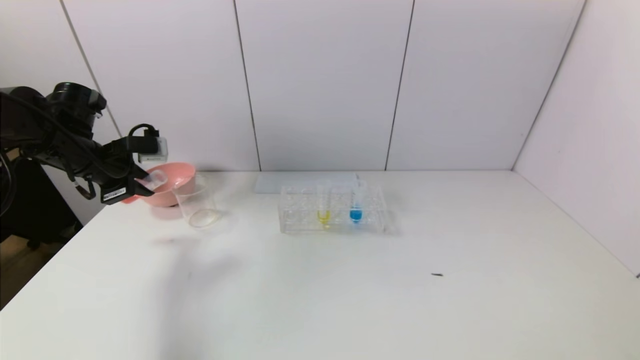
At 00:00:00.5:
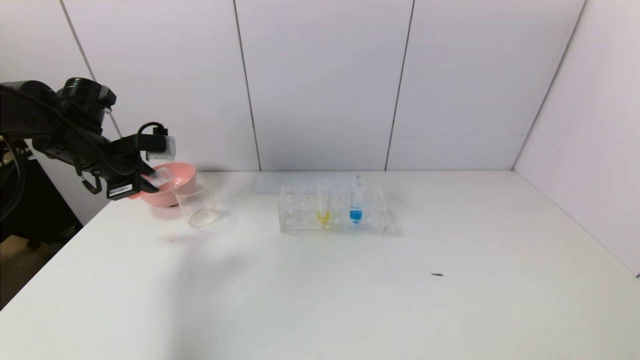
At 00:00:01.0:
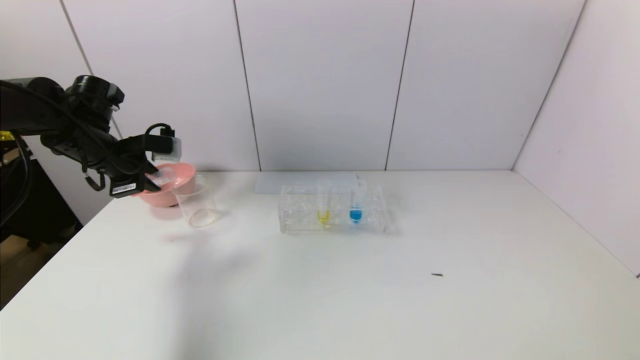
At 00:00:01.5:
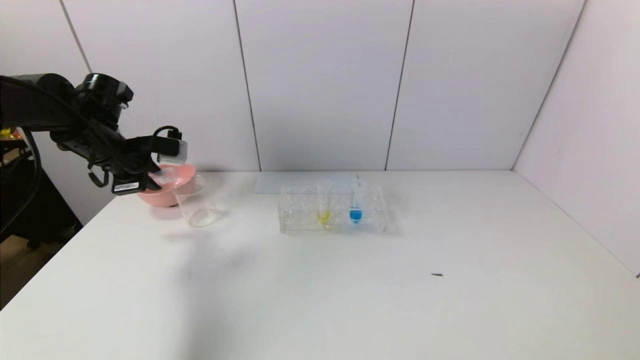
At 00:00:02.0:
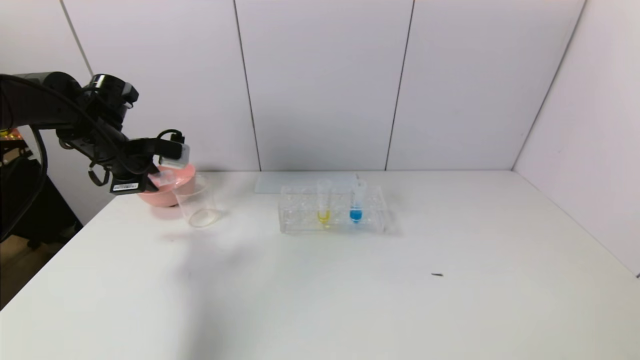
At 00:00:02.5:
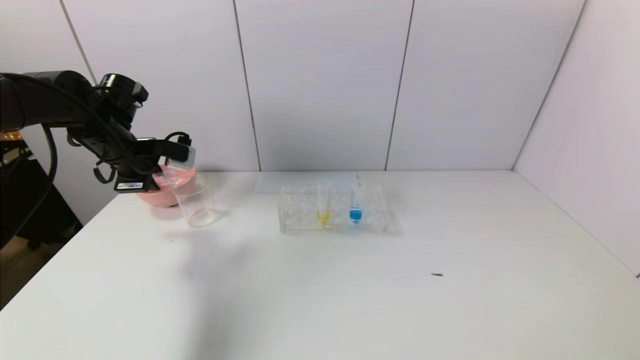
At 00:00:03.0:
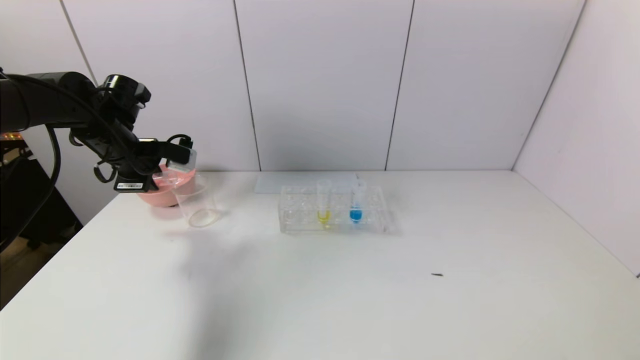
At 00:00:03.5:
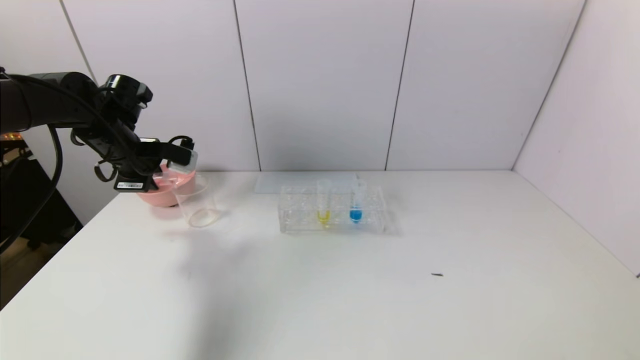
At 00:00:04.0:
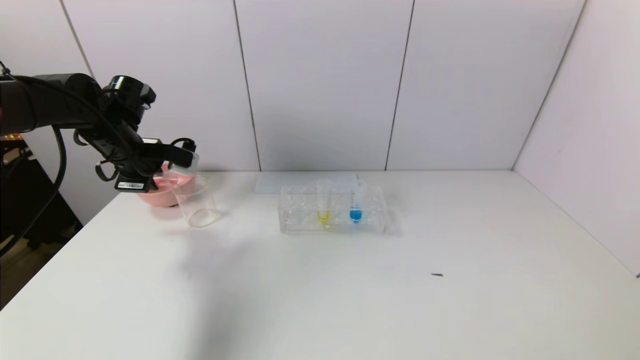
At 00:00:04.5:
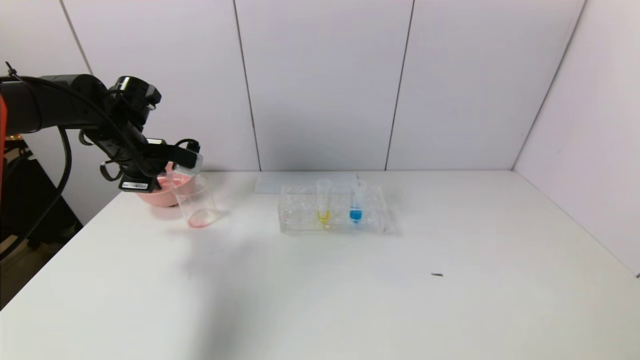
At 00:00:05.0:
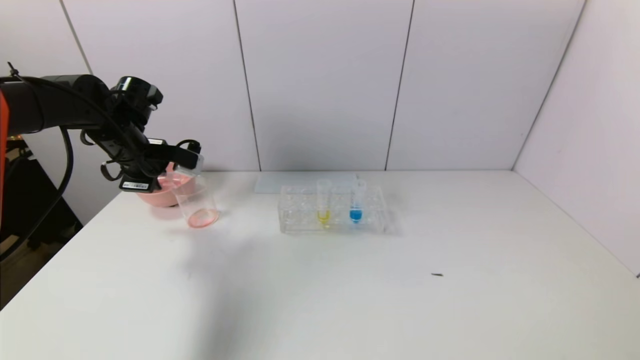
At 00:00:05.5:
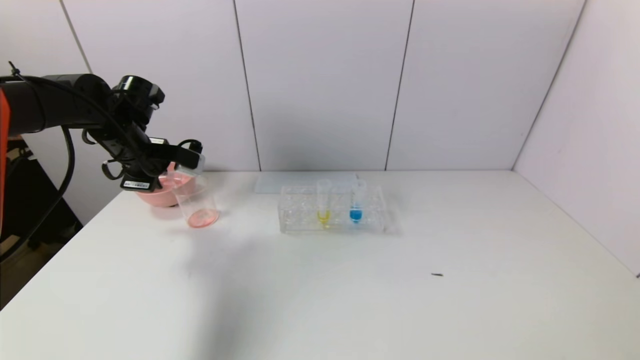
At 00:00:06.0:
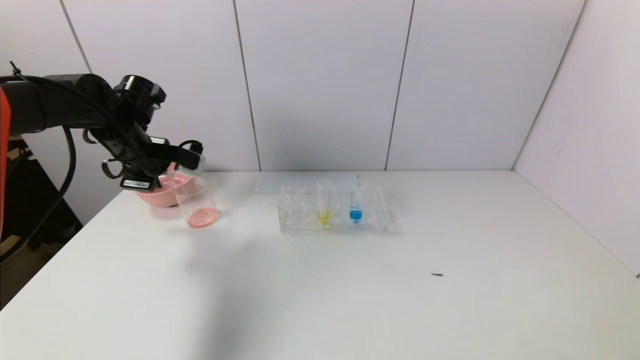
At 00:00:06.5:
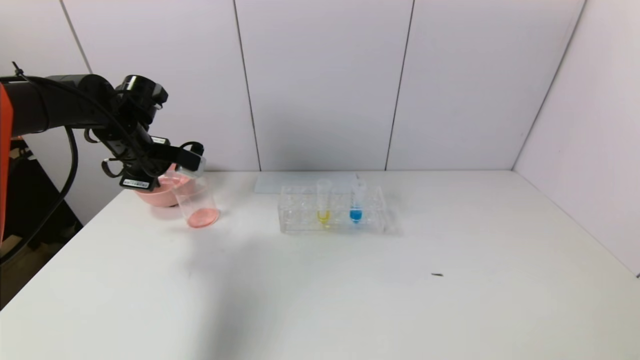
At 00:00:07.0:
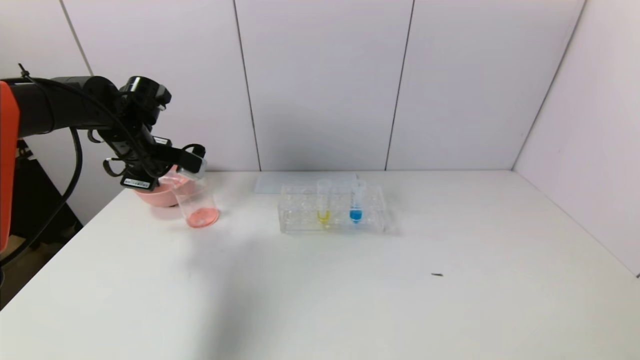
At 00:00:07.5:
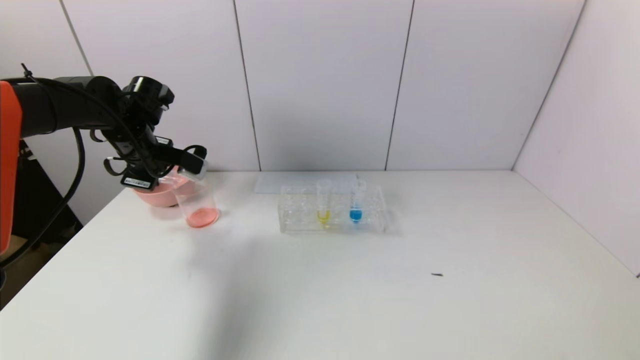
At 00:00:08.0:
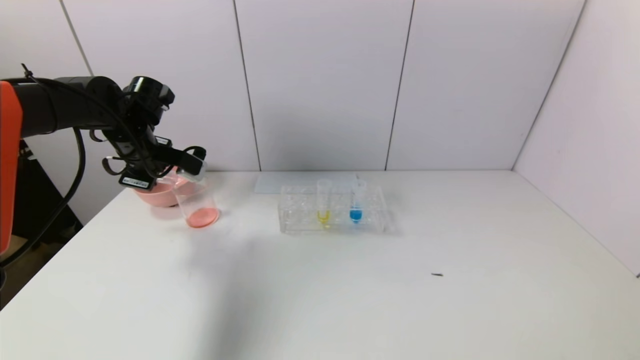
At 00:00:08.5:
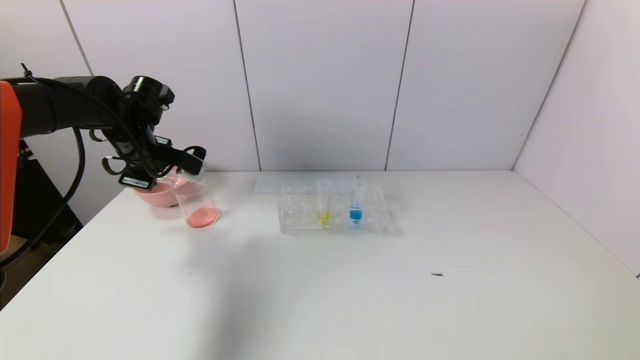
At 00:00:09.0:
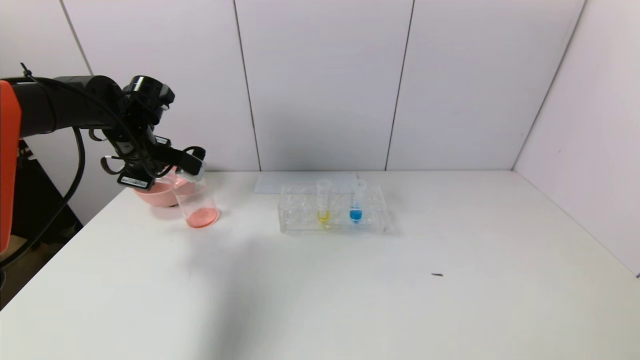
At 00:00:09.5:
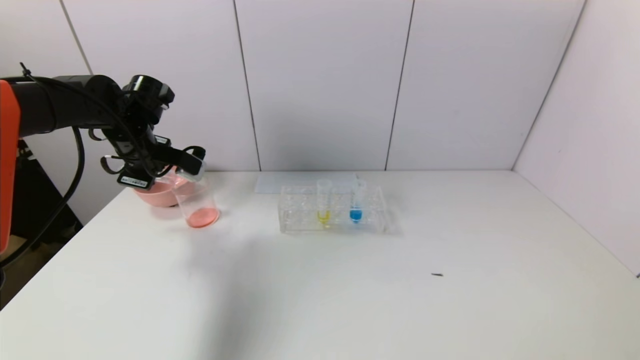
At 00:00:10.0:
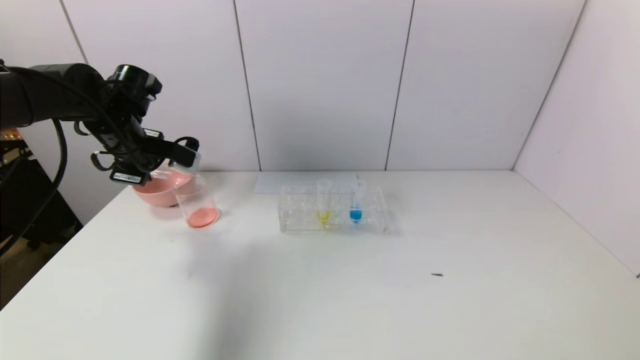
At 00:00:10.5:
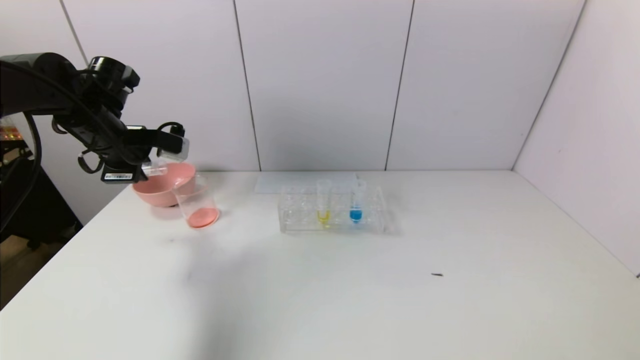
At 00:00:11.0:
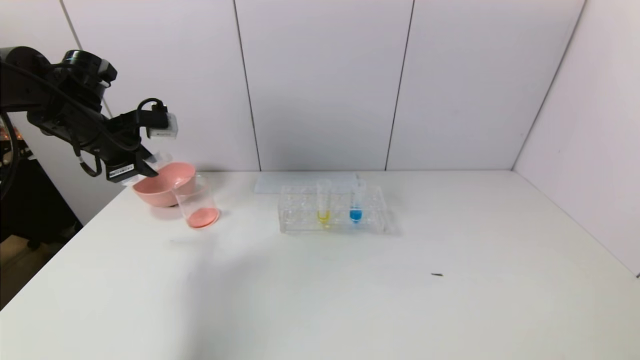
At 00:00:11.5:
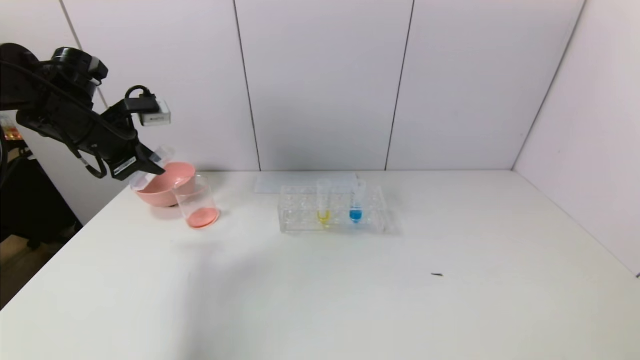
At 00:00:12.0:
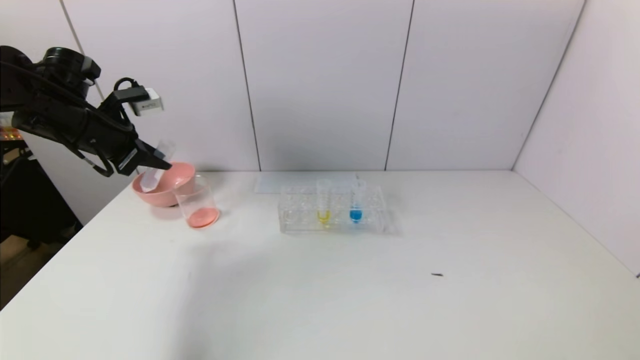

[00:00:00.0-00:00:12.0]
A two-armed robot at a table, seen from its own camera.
Task of the whole recording: pick up the test tube with yellow pigment and the test tube with red pigment by grippers and pour them into the beaker.
Step, 00:00:00.0 to 00:00:09.5: Pour the red reagent into the graduated cylinder with the left gripper.
00:00:00.0 to 00:00:02.0: The grippers stay close to where they were, moving slightly.
00:00:02.0 to 00:00:04.0: The grippers stay close to where they were, moving slightly.
00:00:04.0 to 00:00:06.0: The two grippers keep their place.
00:00:06.0 to 00:00:10.0: There are only small adjustments of the grippers.
00:00:10.0 to 00:00:12.0: The left gripper moves approximately 5 cm.

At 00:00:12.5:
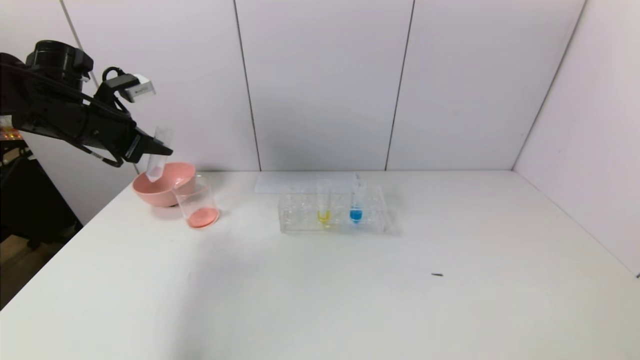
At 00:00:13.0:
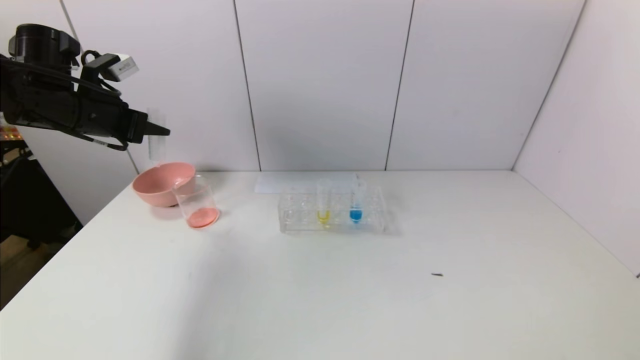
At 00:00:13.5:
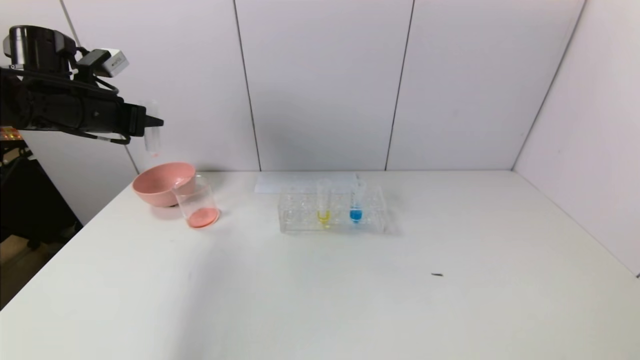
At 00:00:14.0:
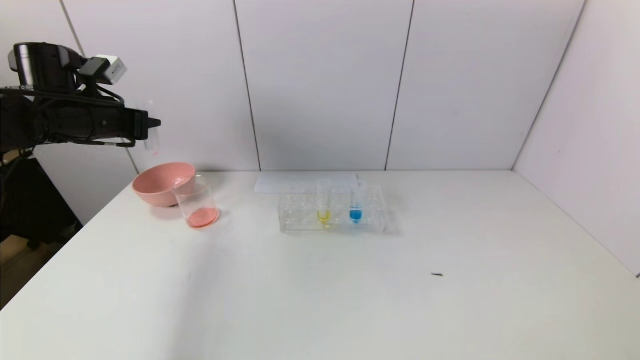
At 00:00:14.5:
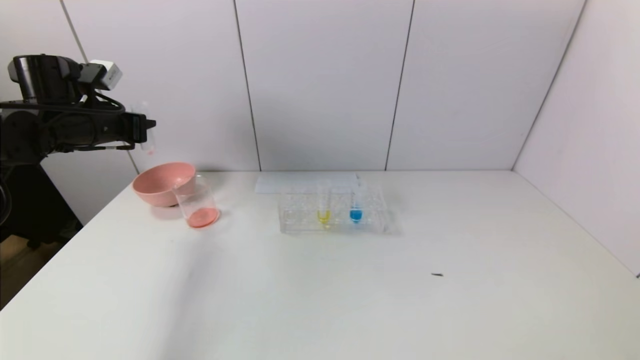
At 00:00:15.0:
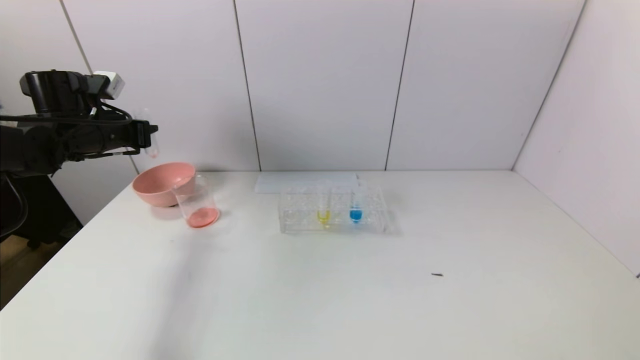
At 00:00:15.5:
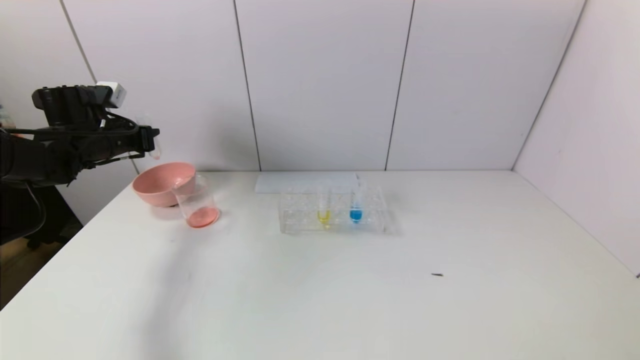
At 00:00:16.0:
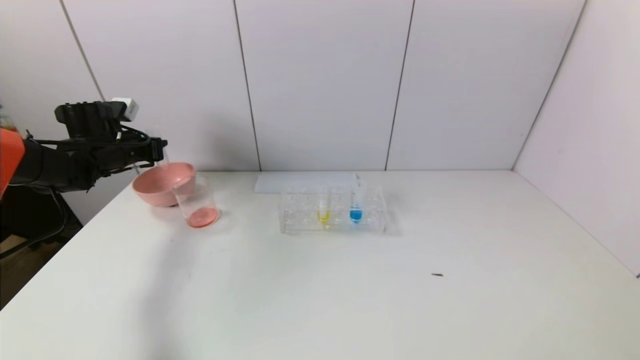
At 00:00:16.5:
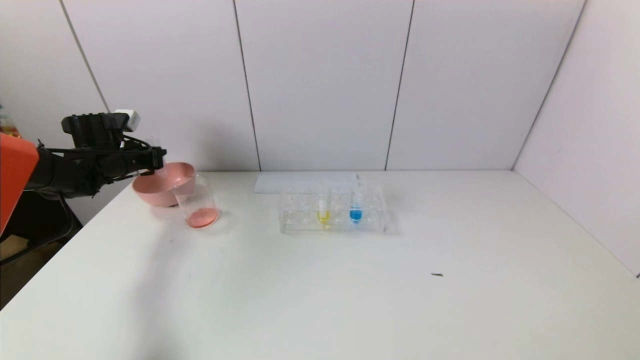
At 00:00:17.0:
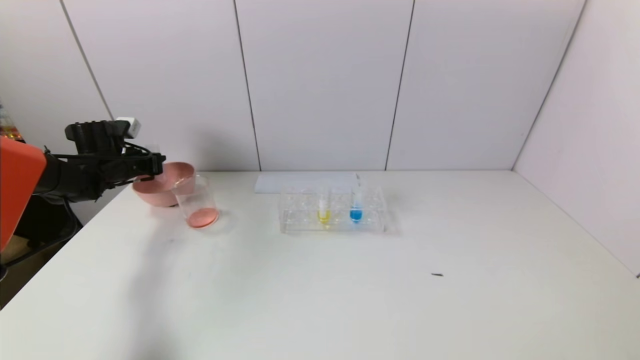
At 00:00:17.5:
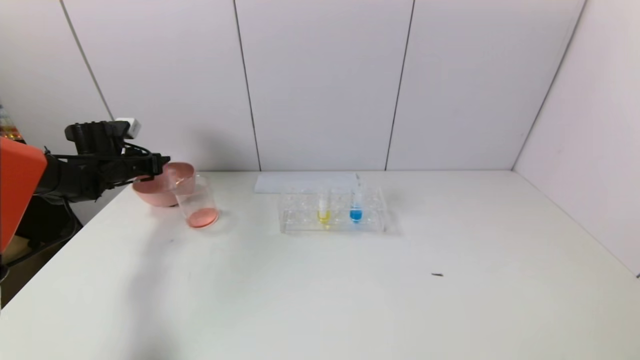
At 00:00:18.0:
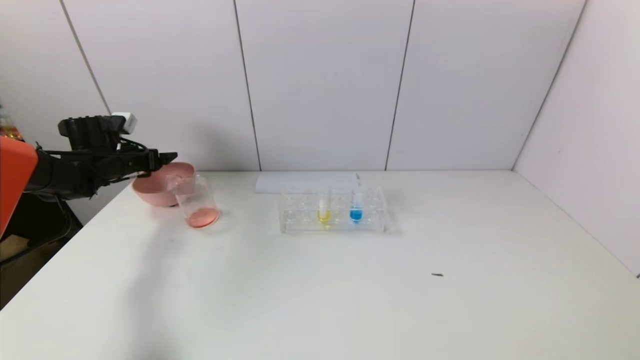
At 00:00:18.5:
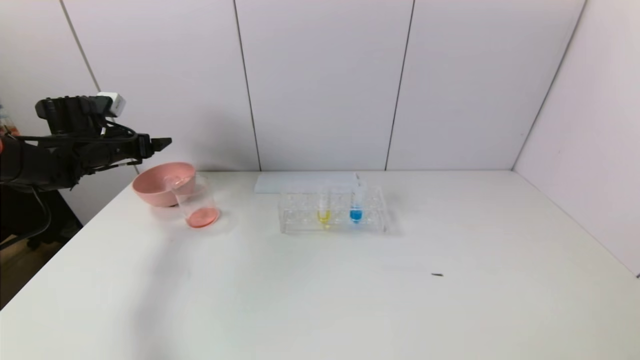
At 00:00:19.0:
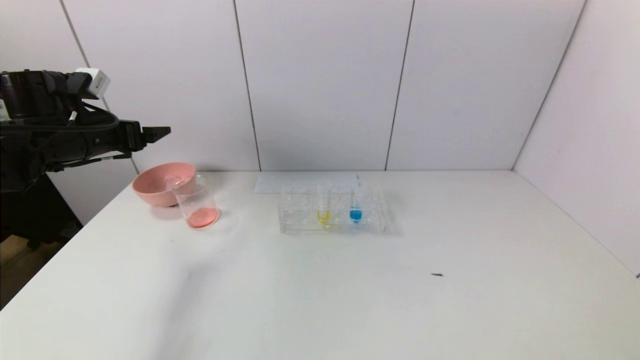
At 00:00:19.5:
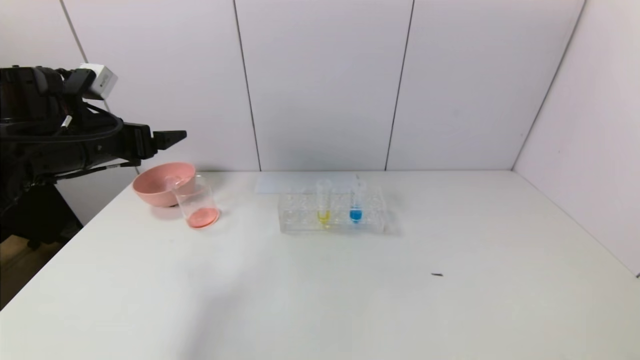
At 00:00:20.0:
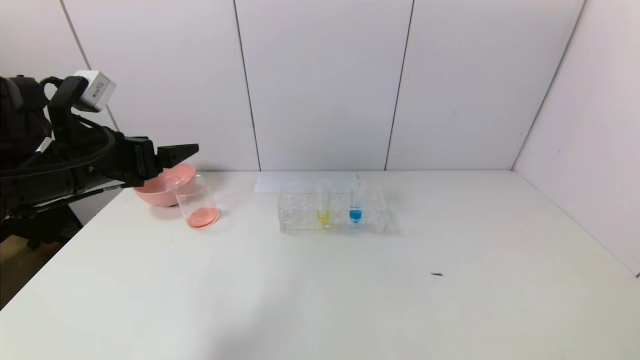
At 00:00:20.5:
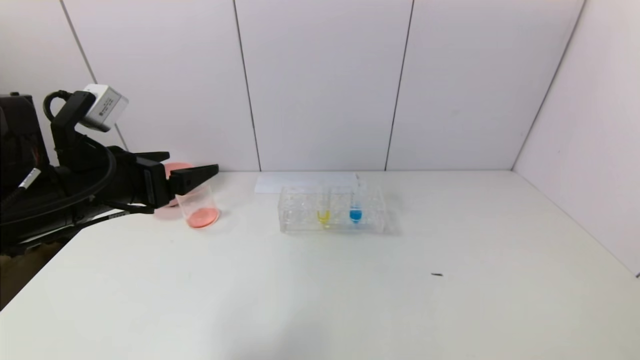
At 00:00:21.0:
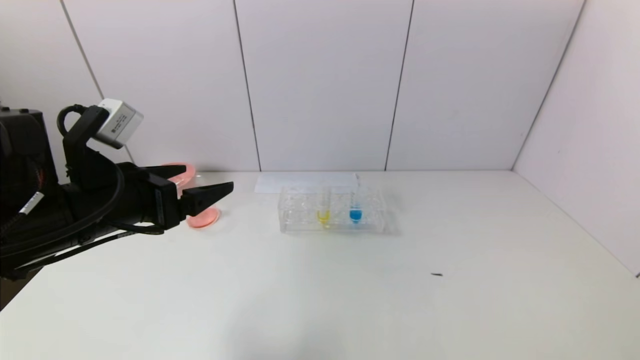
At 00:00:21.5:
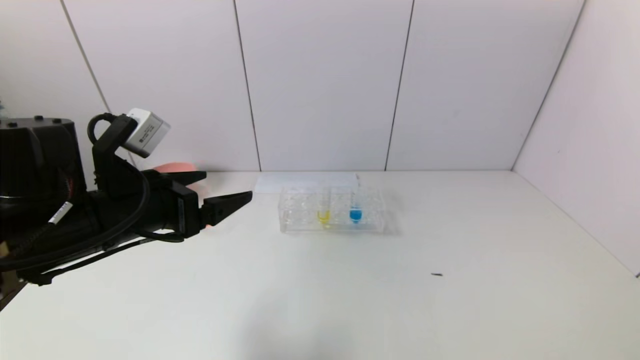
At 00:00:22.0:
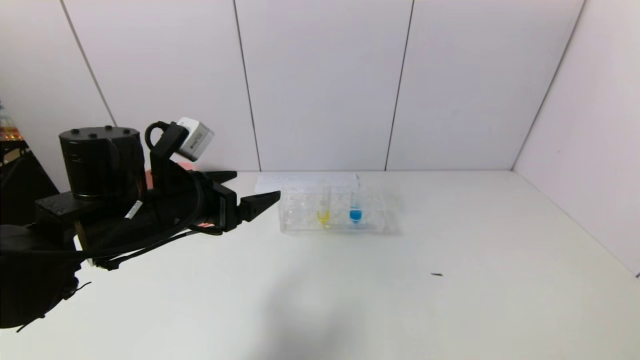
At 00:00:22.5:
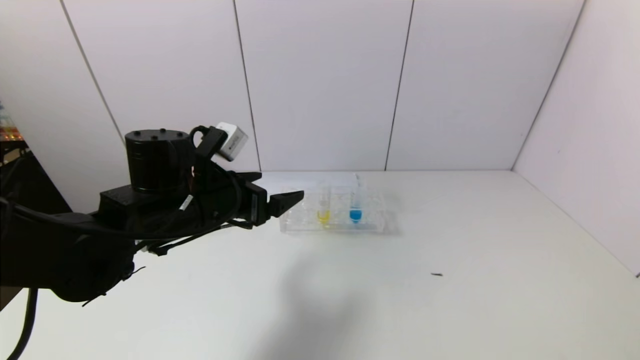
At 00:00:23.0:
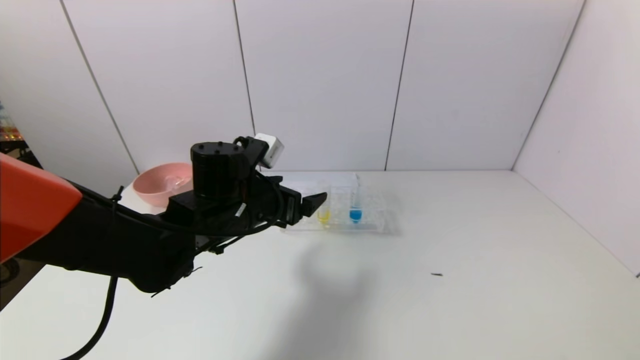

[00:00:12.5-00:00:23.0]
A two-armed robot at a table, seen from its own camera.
Task of the whole recording: pick up the test tube with yellow pigment and the test tube with red pigment by grippers and pour them into the beaker.
Step, 00:00:12.5 to 00:00:17.5: Place the test tube into the pink bowl with the left gripper.
00:00:14.5 to 00:00:16.5: The left gripper heads downward and forward, covering roughly 15 cm.
00:00:16.5 to 00:00:19.0: The left gripper goes about 15 cm backward and upward, and opens its fingers.
00:00:19.0 to 00:00:21.0: The left gripper is displaced backward and to the right by roughly 20 cm.
00:00:21.0 to 00:00:23.0: The left gripper travels to the right, forward and downward by approximately 15 cm.
